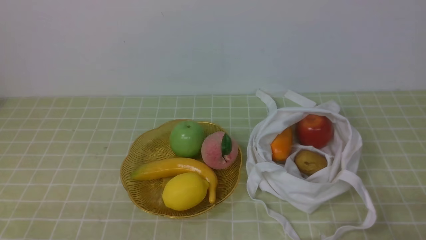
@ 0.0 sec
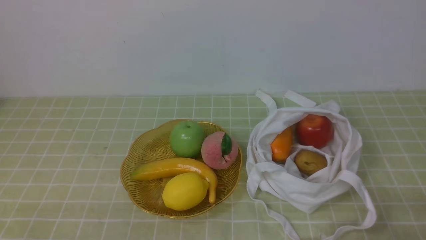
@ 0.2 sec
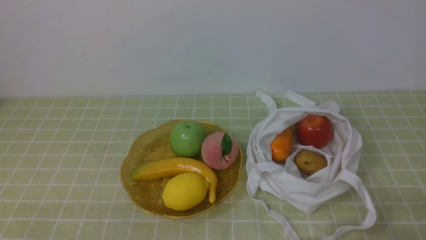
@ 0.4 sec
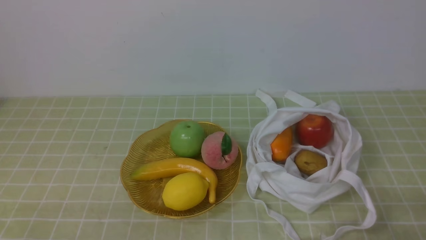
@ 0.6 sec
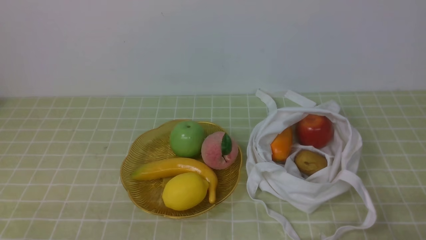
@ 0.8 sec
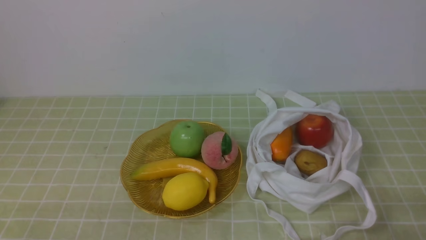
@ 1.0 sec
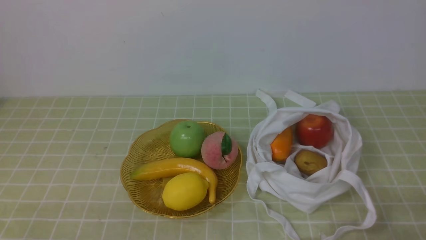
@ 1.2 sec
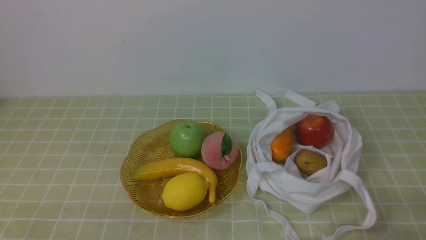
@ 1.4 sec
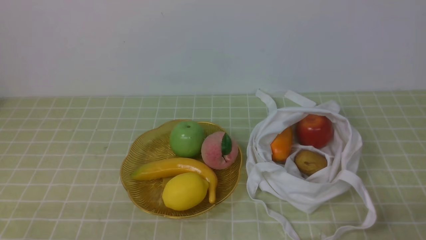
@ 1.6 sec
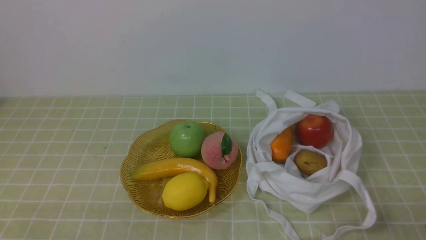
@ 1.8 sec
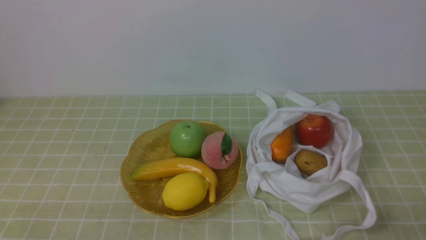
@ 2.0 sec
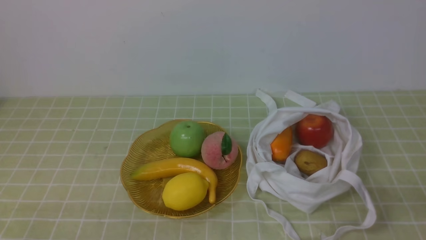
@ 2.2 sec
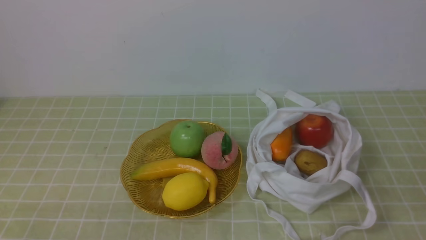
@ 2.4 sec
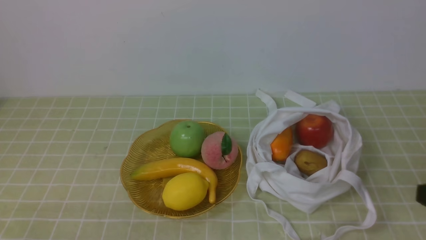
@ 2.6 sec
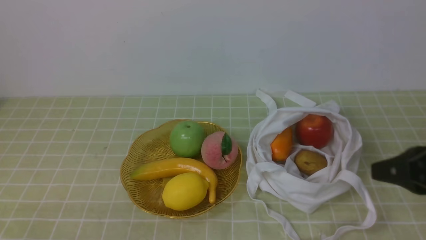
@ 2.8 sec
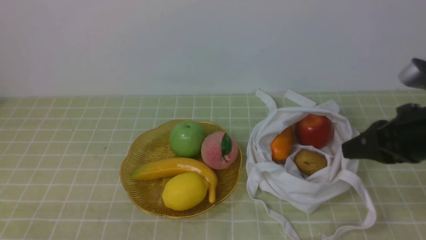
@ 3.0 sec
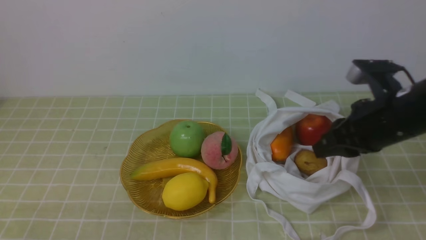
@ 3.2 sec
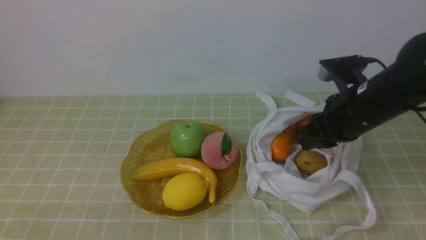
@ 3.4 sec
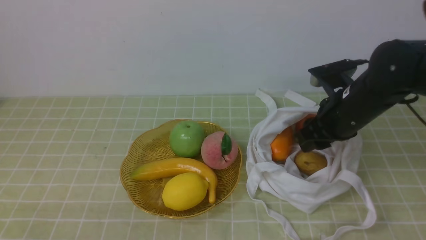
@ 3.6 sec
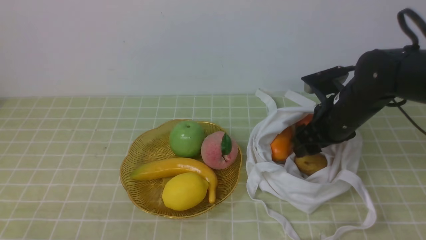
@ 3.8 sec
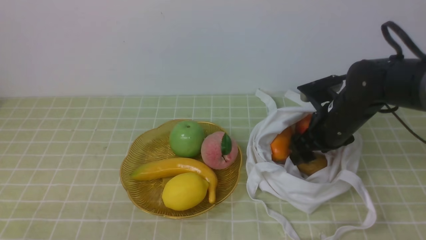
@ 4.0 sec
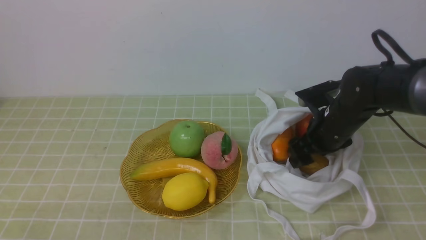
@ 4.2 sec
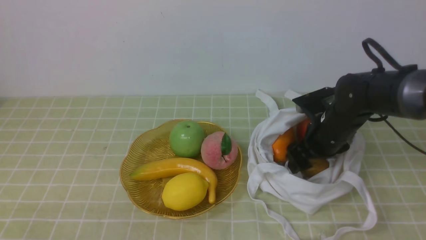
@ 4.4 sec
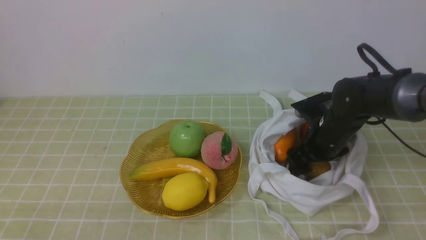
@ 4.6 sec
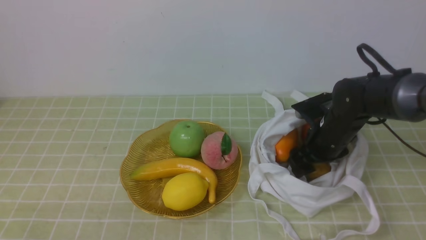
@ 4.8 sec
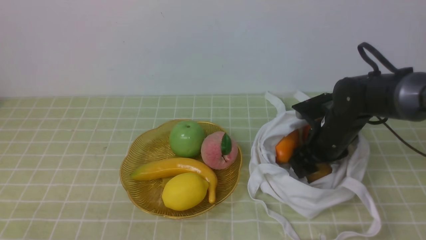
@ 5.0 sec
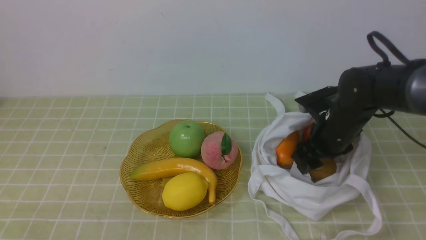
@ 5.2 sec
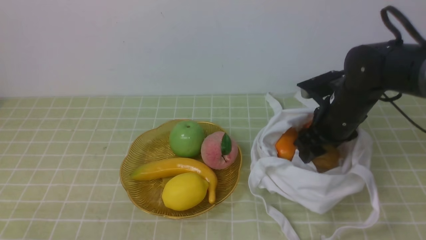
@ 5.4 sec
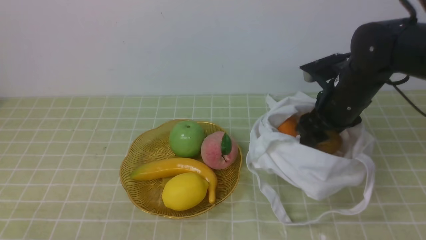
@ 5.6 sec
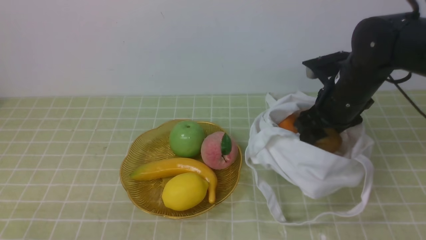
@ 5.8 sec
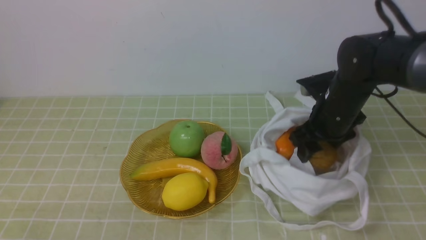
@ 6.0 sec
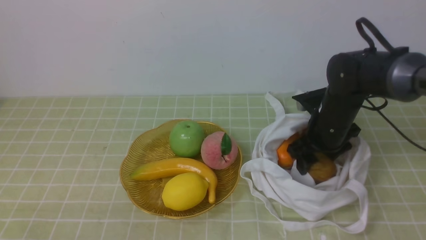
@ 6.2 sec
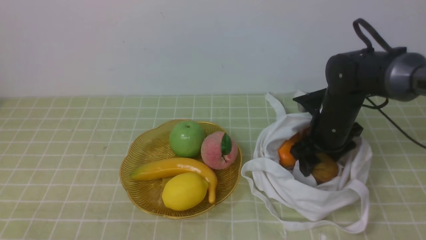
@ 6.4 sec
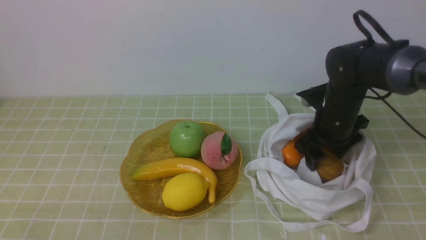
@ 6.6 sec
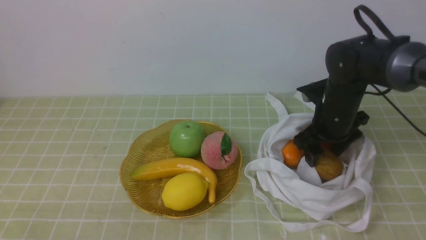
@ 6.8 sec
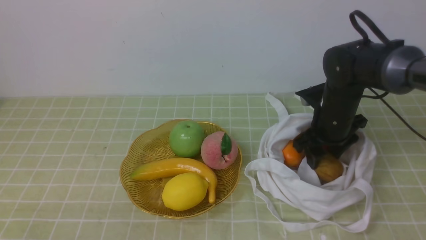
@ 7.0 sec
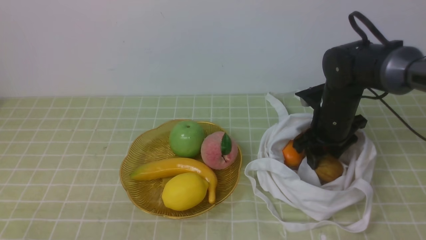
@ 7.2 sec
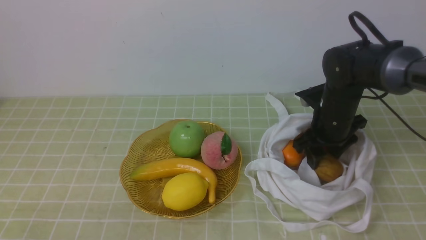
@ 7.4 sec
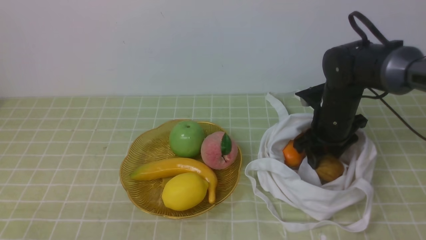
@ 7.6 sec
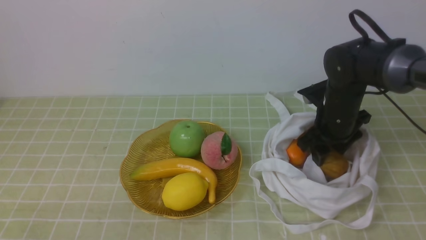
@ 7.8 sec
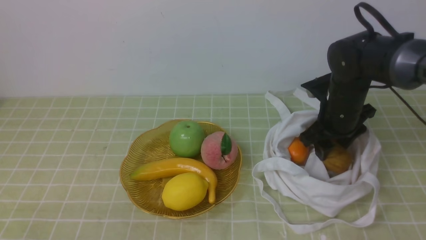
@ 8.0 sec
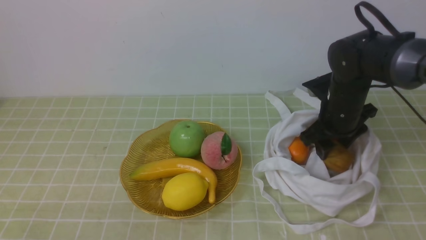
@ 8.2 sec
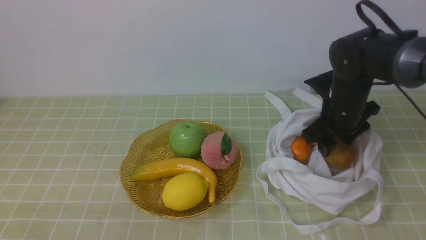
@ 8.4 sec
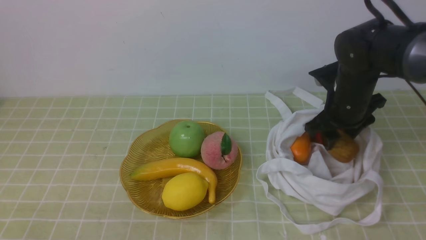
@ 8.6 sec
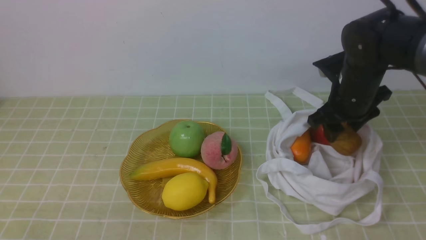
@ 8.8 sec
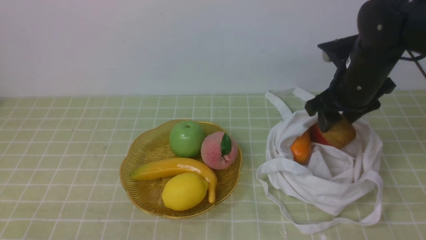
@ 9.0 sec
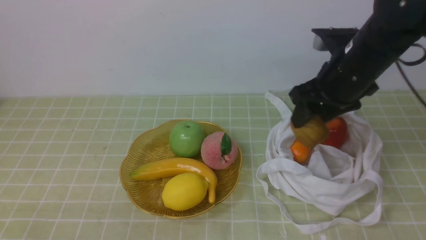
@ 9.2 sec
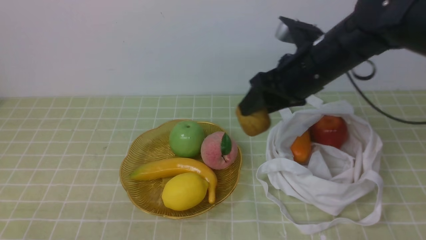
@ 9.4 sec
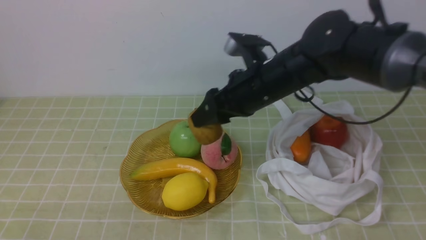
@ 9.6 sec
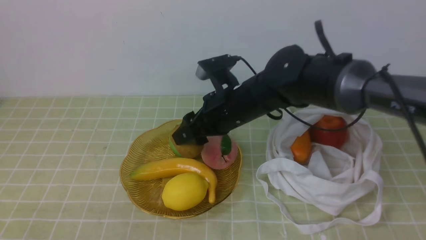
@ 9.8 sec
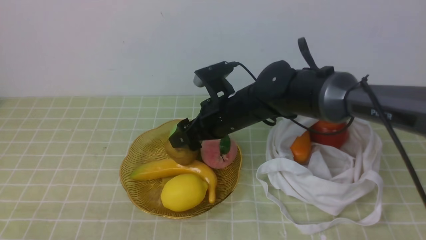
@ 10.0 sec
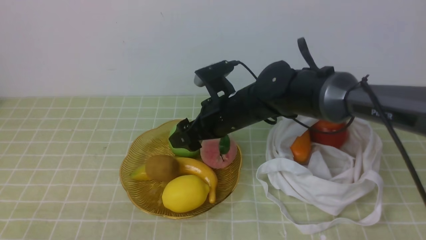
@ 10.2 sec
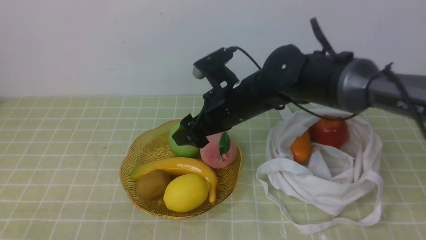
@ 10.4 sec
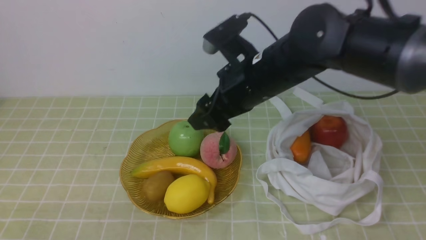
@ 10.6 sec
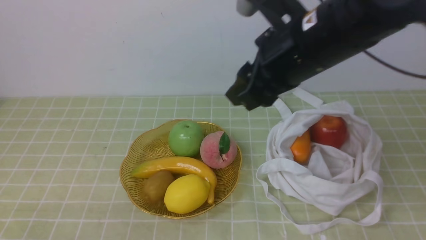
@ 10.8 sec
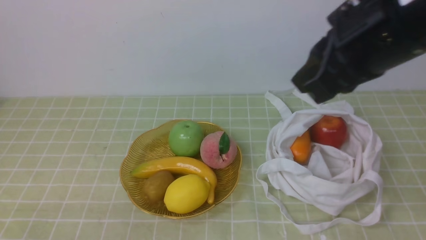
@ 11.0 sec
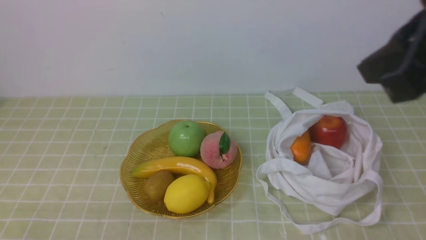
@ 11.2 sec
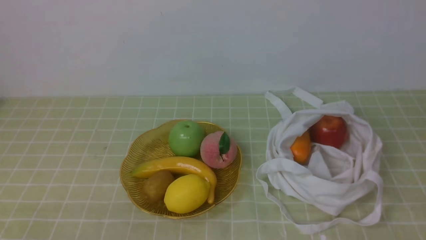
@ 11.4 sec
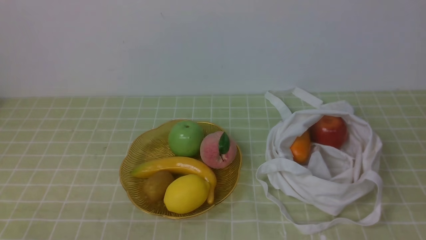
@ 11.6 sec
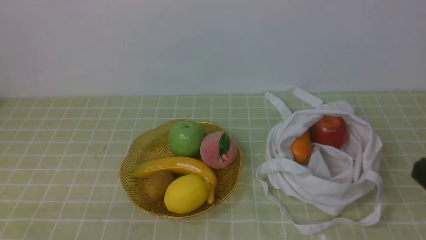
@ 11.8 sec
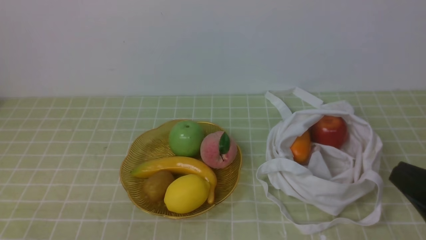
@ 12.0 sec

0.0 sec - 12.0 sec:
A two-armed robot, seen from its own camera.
Step, 0.0 sec - 5.2 sec: use the right arm to grab a kiwi from the bag.
Step, 5.4 sec - 10.2 sec: use the right arm to put the kiwi into the empty plate on the left.
1.6 sec - 3.0 sec: The right gripper travels forward and upward by roughly 20 cm.
3.0 sec - 4.4 sec: The right gripper moves forward and downward, roughly 20 cm, and opens its fingers.
4.4 sec - 6.0 sec: The right gripper moves upward, roughly 5 cm.
6.0 sec - 7.6 sec: The grippers stay close to where they were, moving slightly.
7.6 sec - 9.0 sec: The right gripper travels upward by roughly 10 cm.
9.0 sec - 10.4 sec: The right gripper goes roughly 15 cm to the left, and opens up.
10.4 sec - 12.0 sec: The right gripper travels backward and to the right by approximately 35 cm, and closes its fingers.

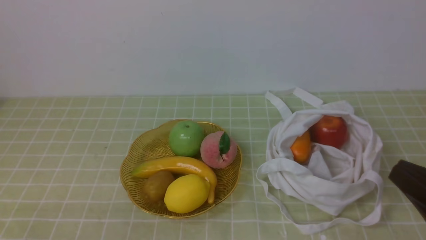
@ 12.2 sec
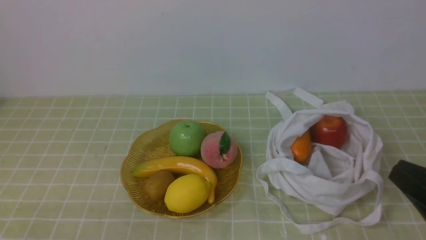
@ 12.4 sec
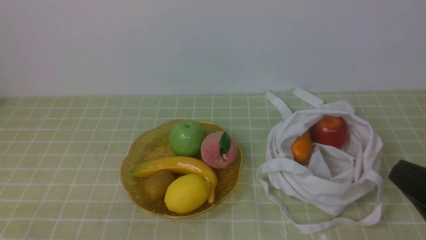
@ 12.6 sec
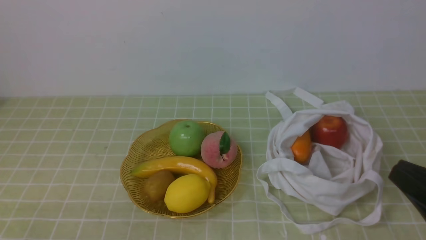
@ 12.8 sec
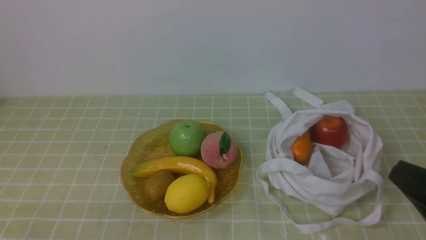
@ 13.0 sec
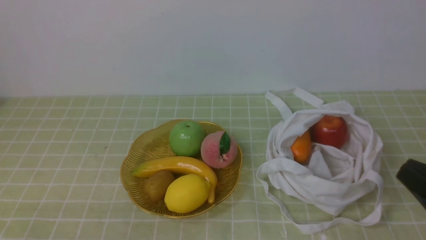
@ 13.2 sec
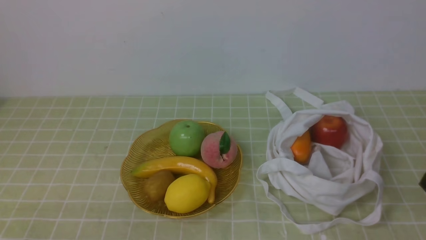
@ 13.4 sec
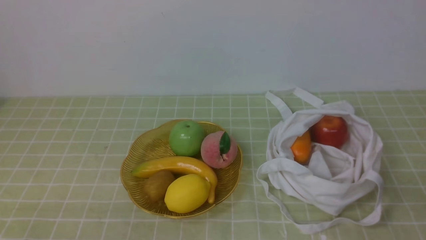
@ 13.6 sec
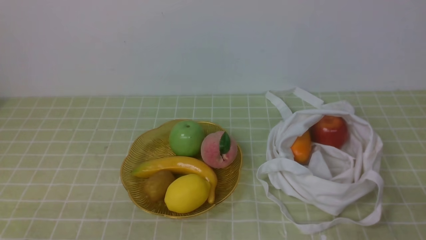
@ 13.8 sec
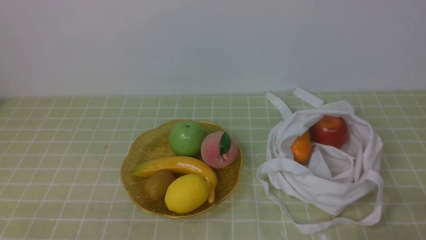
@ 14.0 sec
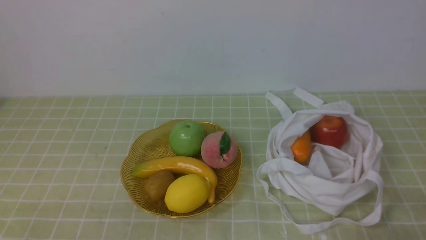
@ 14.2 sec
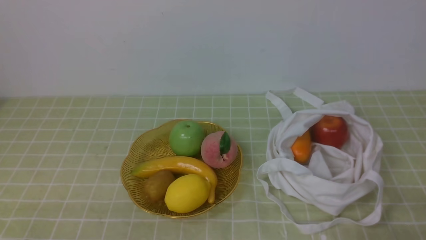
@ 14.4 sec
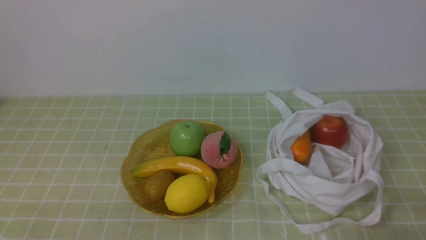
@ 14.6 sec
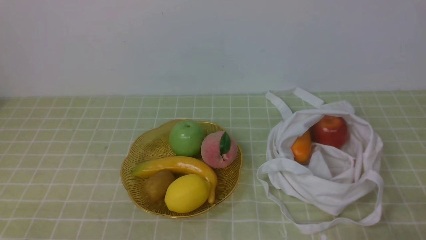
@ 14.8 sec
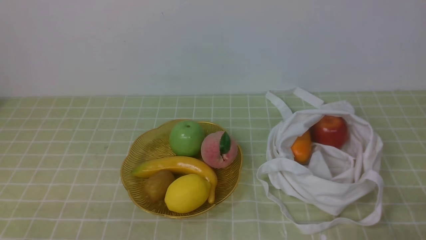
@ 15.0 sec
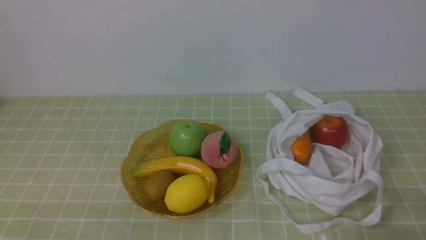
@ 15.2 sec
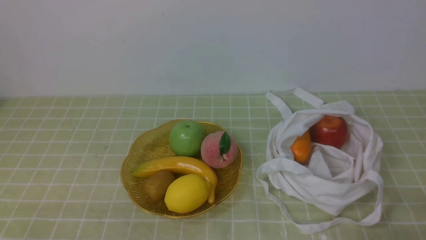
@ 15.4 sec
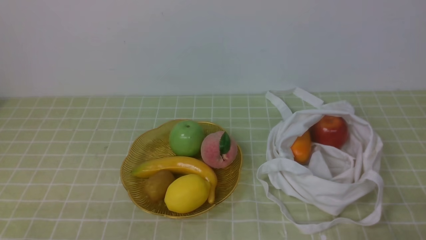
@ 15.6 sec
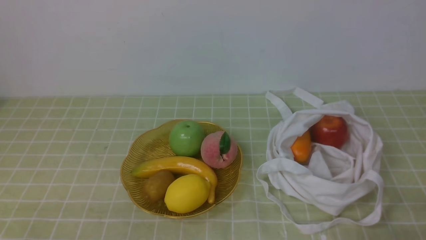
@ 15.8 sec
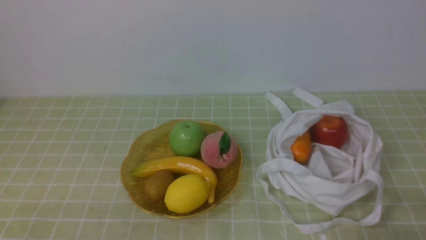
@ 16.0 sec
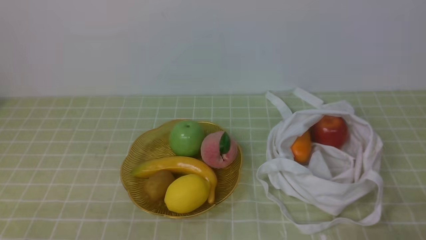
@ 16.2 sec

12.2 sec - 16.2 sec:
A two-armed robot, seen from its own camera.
12.2 sec - 13.6 sec: The right gripper is displaced downward by roughly 5 cm.
14.8 sec - 16.2 sec: Neither gripper changes place.
